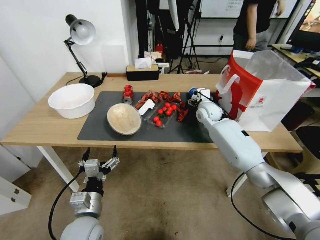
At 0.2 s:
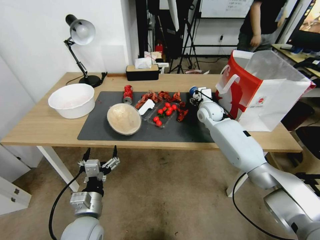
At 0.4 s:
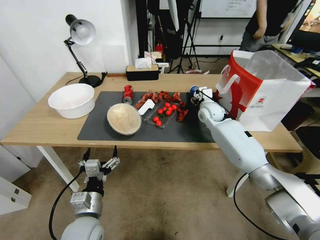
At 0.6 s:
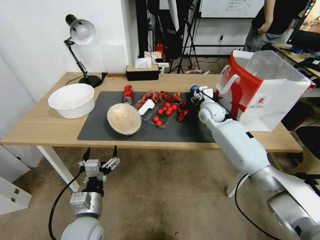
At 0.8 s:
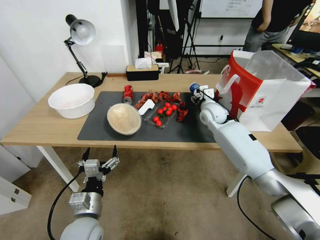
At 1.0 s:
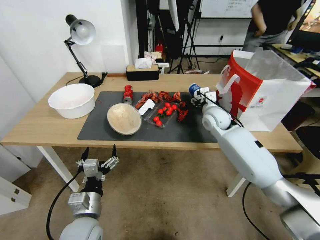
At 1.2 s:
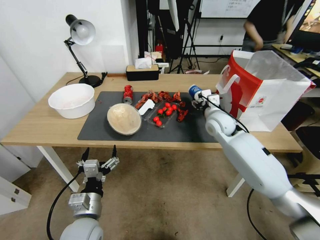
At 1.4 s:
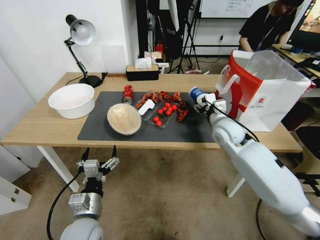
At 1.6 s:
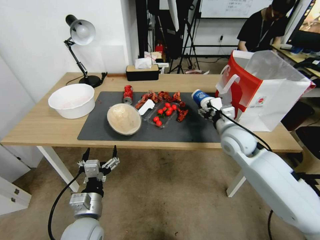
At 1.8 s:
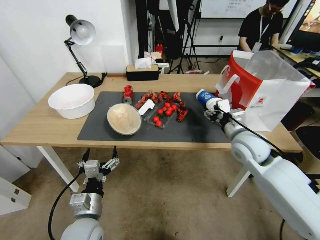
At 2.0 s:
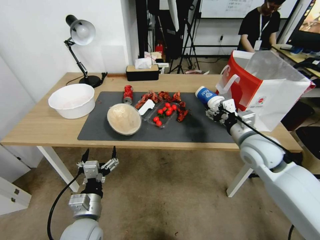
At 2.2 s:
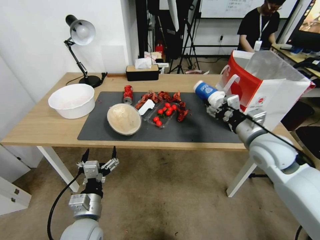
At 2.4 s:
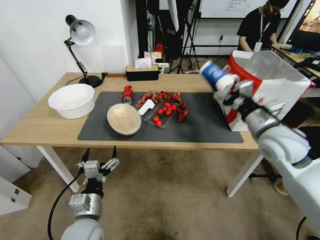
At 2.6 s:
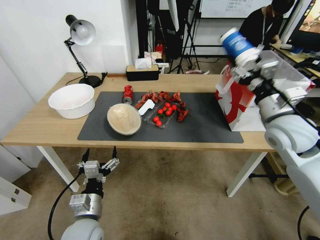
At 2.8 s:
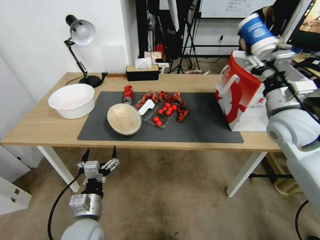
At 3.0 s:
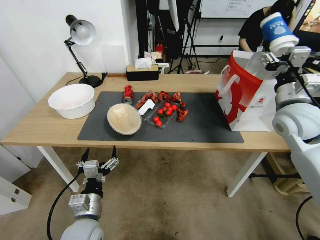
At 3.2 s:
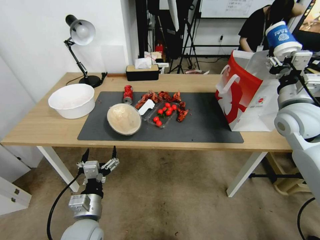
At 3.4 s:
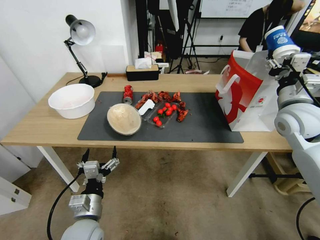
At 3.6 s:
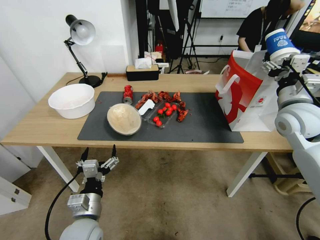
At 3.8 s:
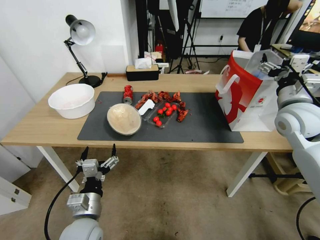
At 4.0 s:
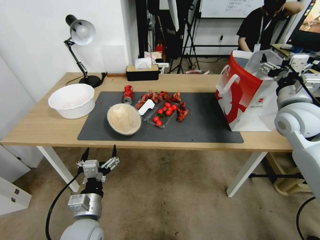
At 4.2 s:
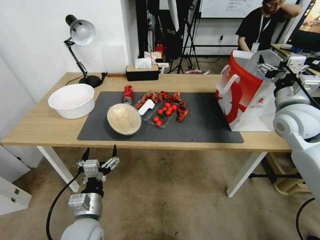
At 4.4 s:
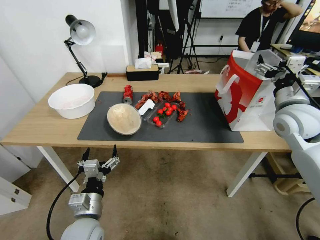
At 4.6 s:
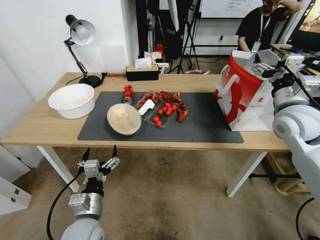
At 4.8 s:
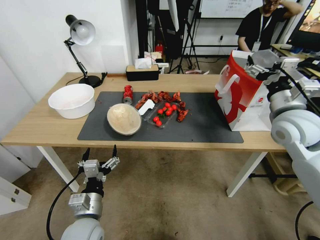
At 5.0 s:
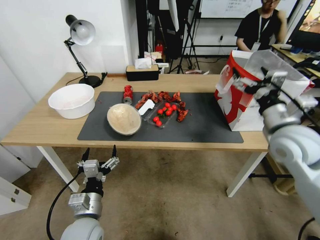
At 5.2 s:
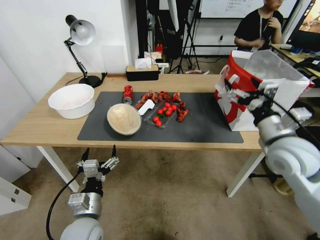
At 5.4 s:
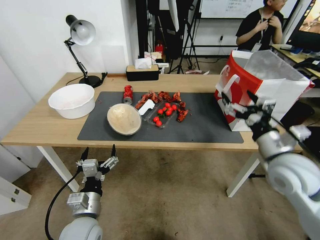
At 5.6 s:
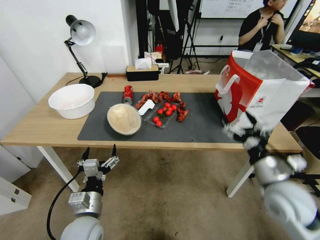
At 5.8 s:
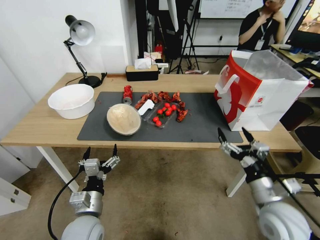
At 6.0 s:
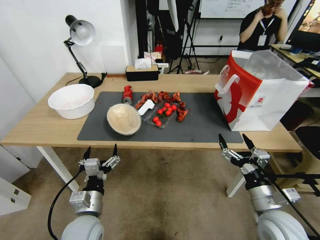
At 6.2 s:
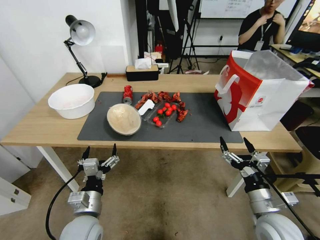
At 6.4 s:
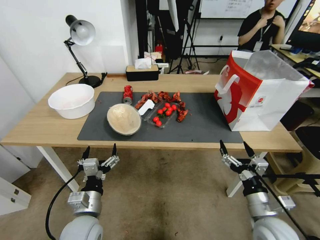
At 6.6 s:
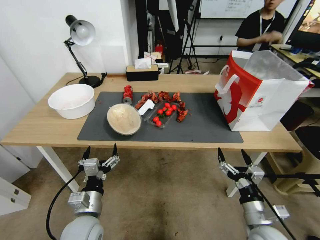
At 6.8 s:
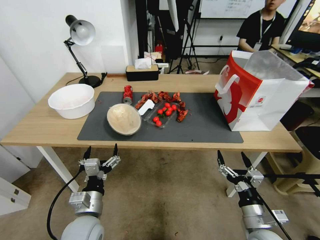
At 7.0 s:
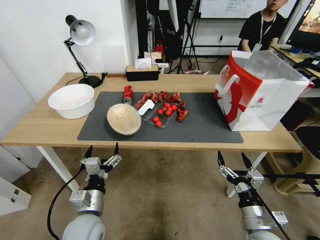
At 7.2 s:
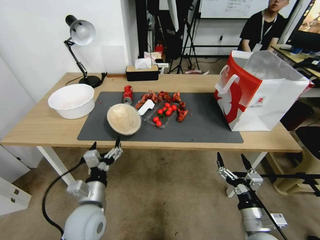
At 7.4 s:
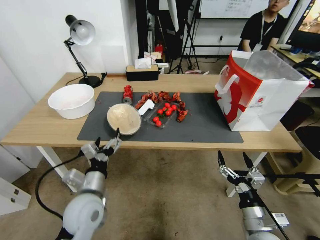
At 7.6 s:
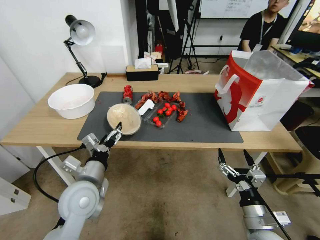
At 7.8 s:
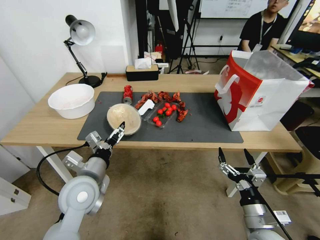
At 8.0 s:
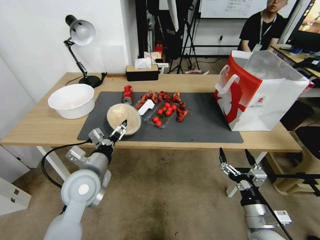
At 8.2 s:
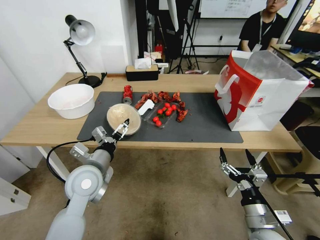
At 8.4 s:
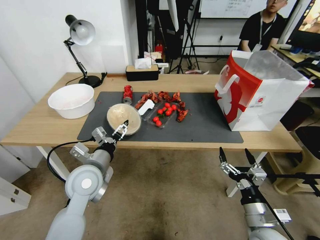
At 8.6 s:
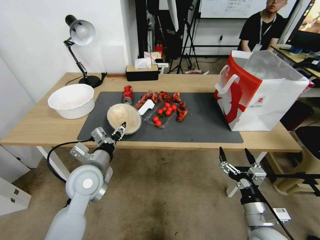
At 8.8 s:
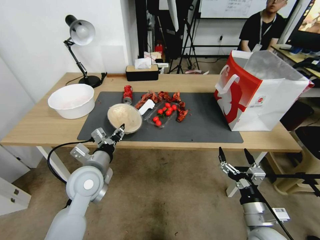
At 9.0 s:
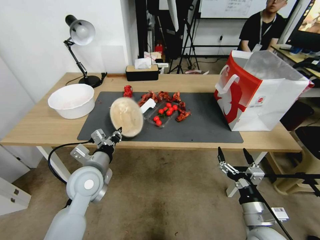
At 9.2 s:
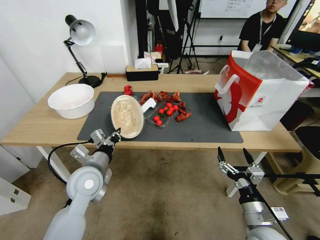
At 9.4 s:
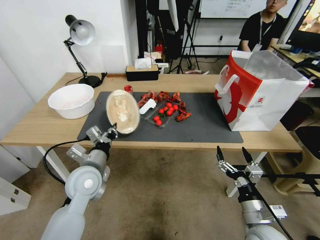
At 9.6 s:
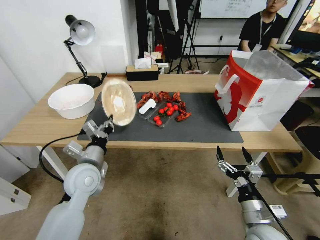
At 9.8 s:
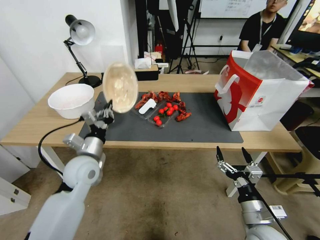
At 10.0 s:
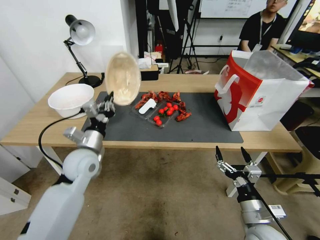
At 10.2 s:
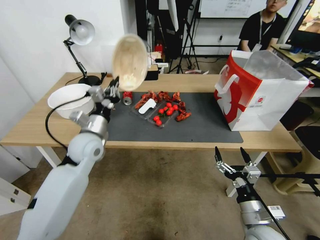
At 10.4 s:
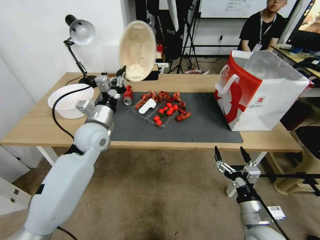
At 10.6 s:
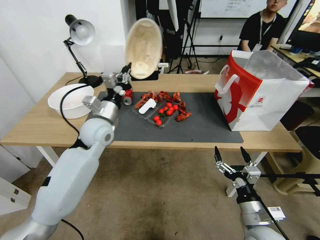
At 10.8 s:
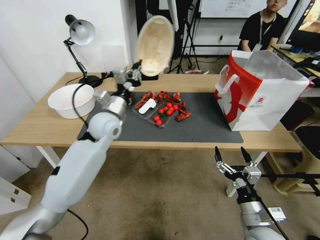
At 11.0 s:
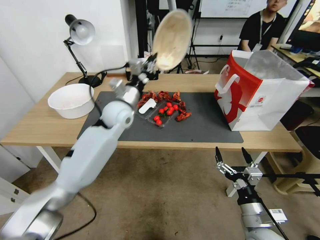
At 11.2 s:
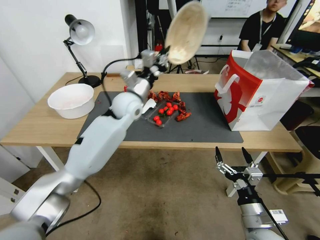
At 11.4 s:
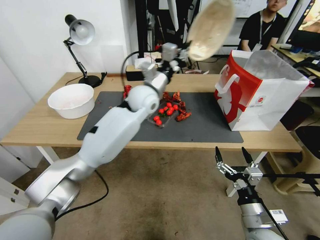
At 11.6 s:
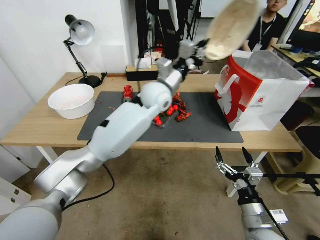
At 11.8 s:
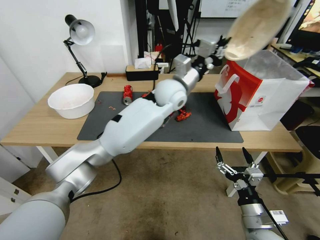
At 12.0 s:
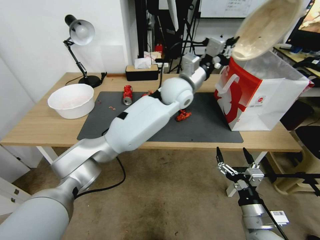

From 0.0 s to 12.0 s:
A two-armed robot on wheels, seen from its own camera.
From 0.0 s to 1.6 s: The right gripper goes roughly 15 cm backward.
From 1.6 s to 3.0 s: The right gripper moves upward, to the right and backward, approximately 15 cm.
From 3.0 s to 4.4 s: The right gripper opens.
From 4.4 s to 6.0 s: The right gripper shifts roughly 20 cm backward and downward.
From 6.0 s to 7.6 s: The right gripper goes roughly 15 cm downward and backward; the left gripper travels upward and forward by roughly 10 cm.
From 7.6 s to 9.0 s: The left gripper shifts about 5 cm forward, and closes up.
From 9.0 s to 10.4 s: The left gripper heads forward and upward, covering some 15 cm.
From 10.4 s to 12.0 s: The left gripper heads to the right, covering approximately 25 cm.

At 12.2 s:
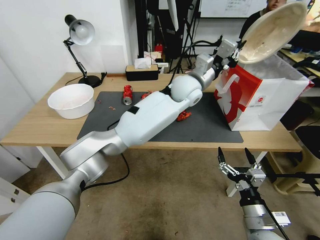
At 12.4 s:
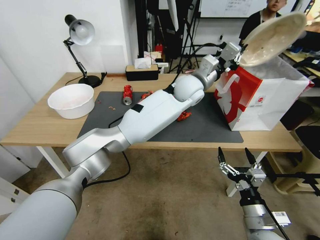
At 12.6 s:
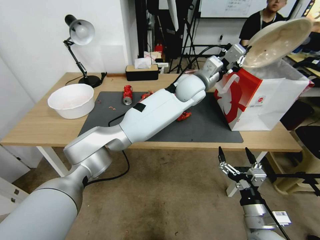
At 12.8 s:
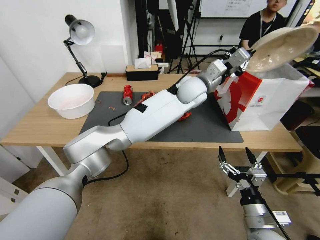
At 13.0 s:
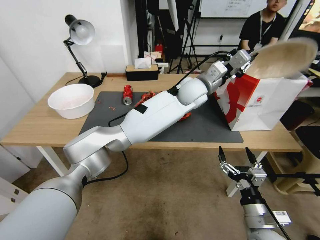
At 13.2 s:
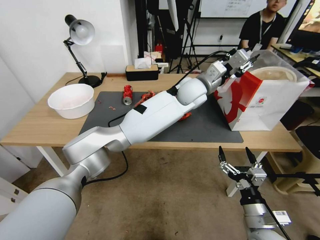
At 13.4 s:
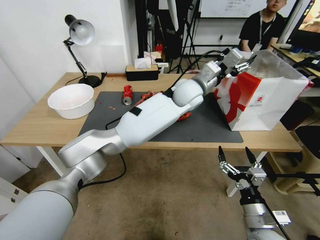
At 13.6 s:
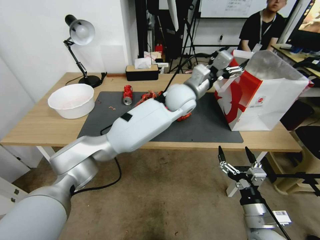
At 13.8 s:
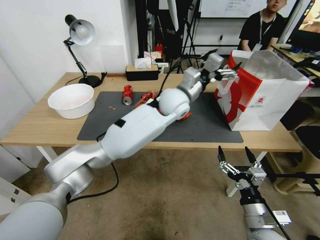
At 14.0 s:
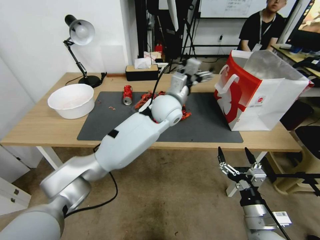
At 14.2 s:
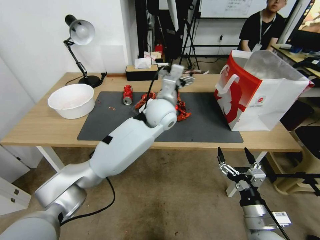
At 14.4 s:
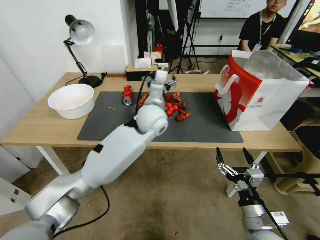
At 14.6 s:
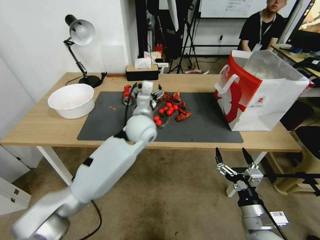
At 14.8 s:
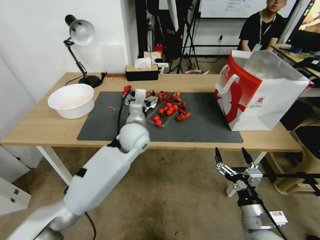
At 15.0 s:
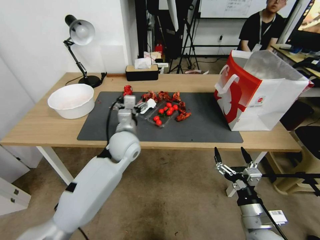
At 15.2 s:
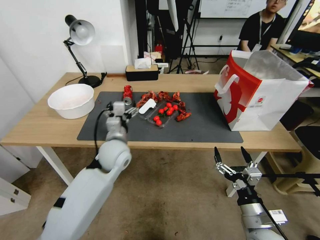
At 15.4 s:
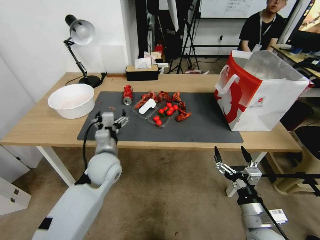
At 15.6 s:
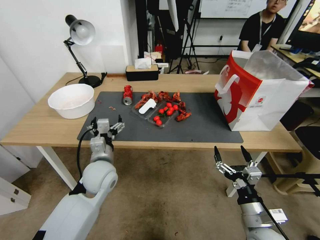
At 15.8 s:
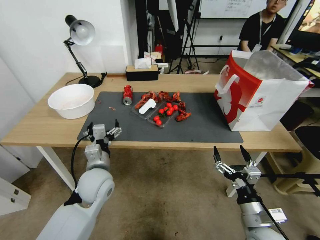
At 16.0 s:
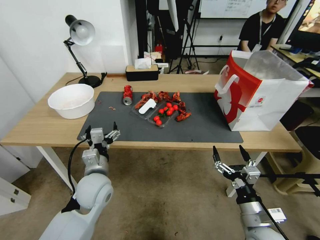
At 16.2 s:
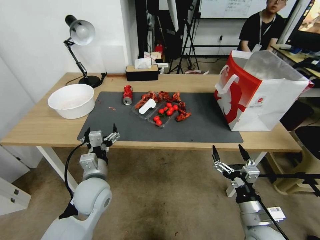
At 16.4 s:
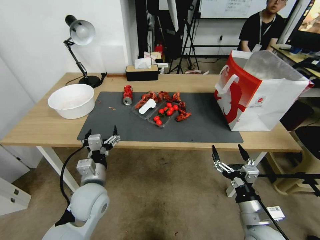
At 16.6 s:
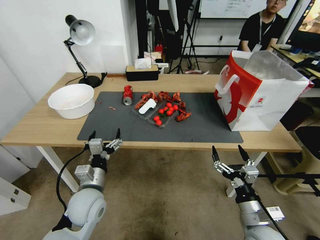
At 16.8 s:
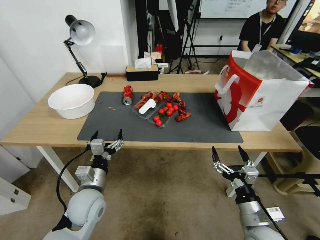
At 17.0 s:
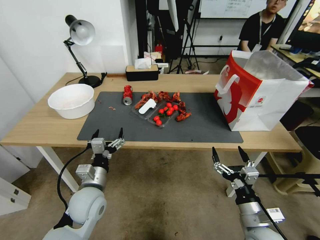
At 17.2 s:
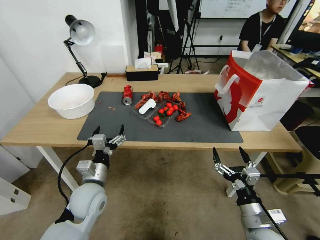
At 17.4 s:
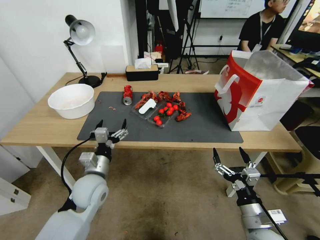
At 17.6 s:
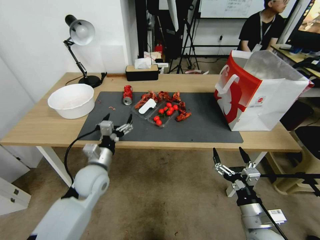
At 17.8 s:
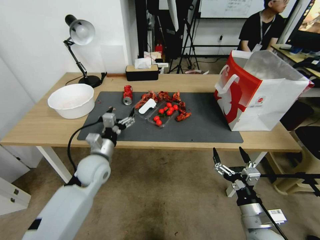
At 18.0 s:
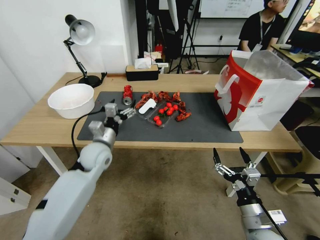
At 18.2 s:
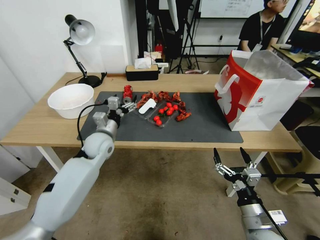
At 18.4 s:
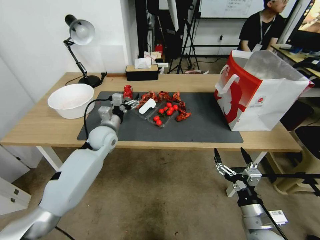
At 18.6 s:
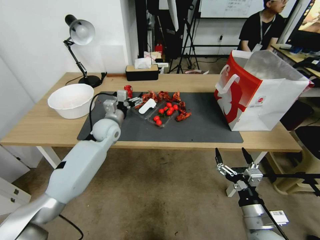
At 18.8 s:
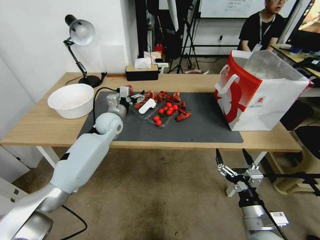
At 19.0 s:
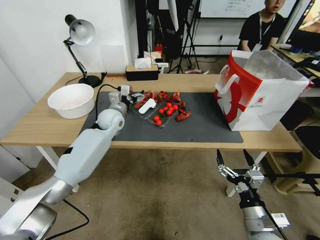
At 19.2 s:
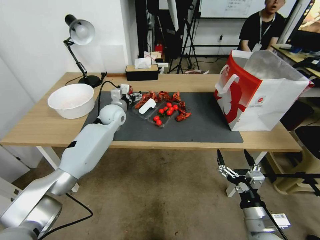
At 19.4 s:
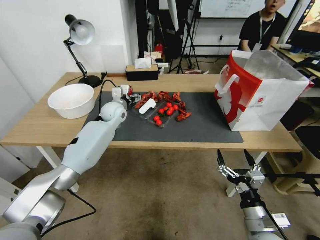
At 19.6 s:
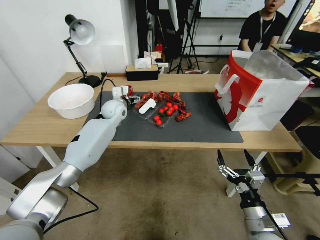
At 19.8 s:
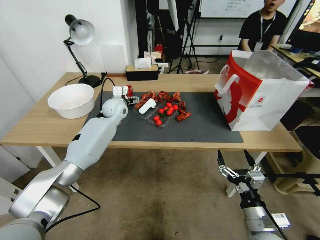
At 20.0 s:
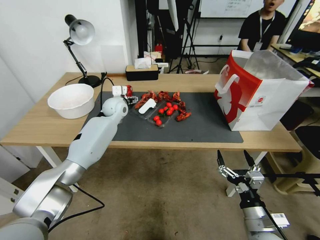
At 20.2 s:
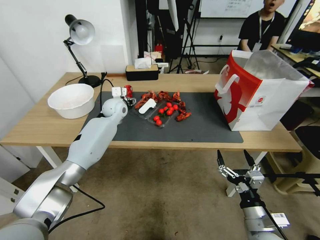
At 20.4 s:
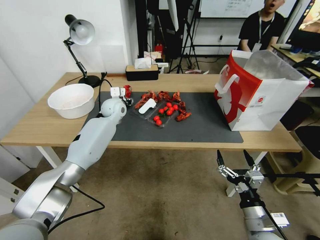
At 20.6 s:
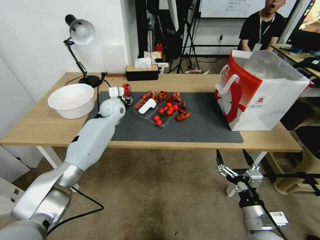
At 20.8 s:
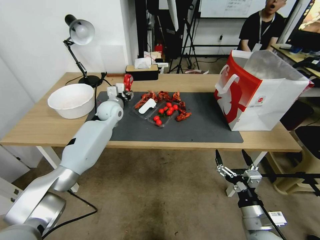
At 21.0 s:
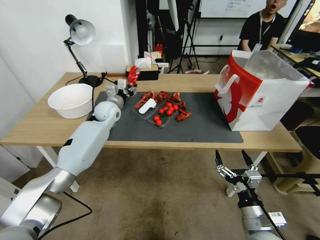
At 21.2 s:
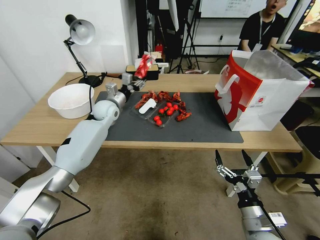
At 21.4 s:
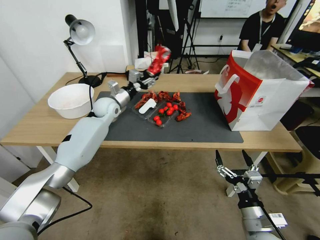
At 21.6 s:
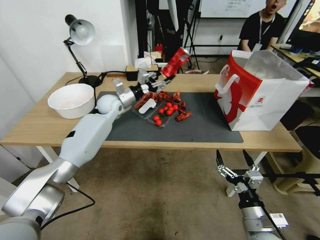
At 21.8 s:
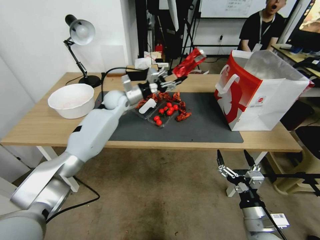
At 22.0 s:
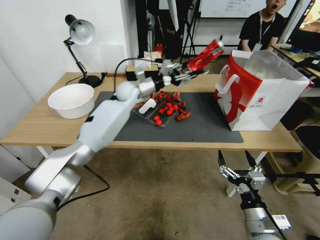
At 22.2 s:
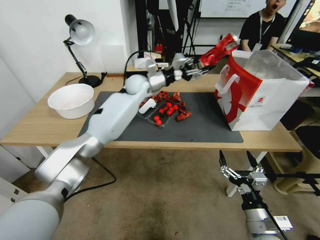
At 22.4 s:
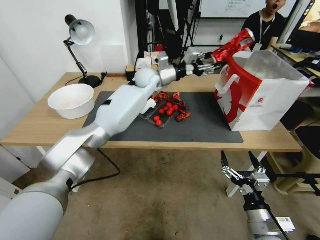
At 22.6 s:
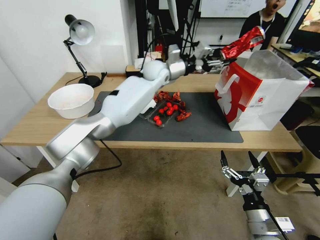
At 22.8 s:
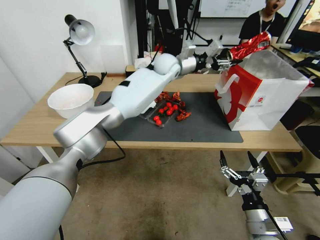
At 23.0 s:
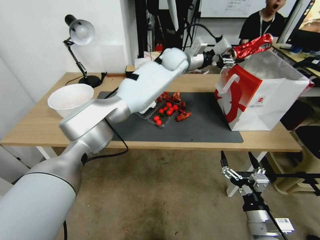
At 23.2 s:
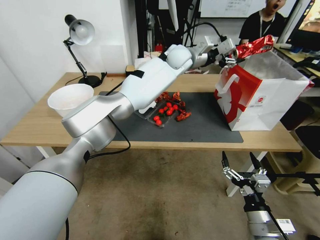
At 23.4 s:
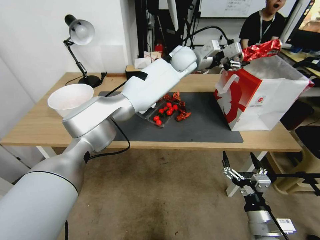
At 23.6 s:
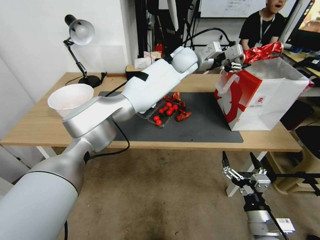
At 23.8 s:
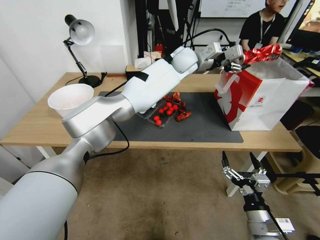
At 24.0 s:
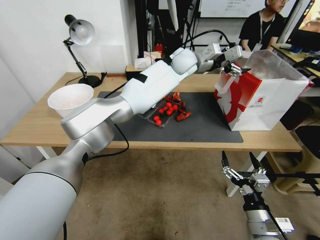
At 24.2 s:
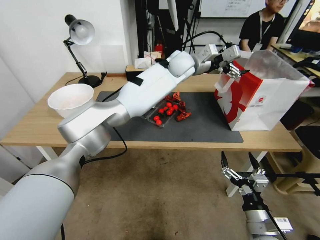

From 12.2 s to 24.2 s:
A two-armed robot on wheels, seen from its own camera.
From 12.2 s to 13.8 s: The left gripper moves roughly 5 cm, and opens its fingers.
From 13.8 s to 15.2 s: The left gripper is displaced to the left, backward and downward by some 25 cm.
From 15.2 s to 16.6 s: The left gripper moves backward, downward and to the left, about 15 cm.
From 16.6 s to 18.2 s: The left gripper heads forward, covering roughly 20 cm.
From 18.2 s to 19.8 s: The left gripper moves forward, some 15 cm.
From 19.8 s to 21.2 s: The left gripper closes its fingers.
From 21.2 s to 22.6 s: The left gripper heads to the right and upward, covering some 25 cm.
From 22.6 s to 24.2 s: The left gripper travels to the right by some 10 cm, and opens up.
